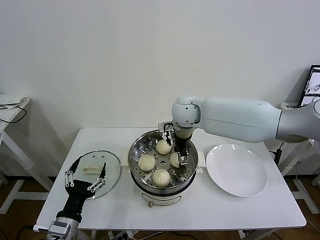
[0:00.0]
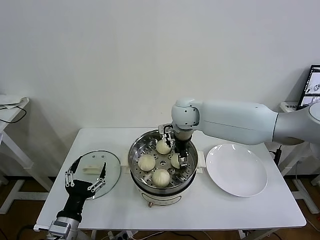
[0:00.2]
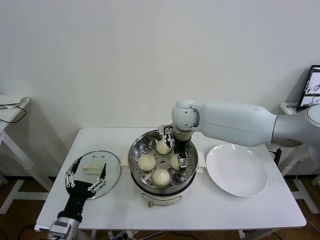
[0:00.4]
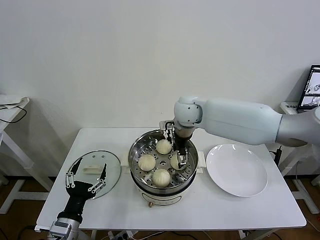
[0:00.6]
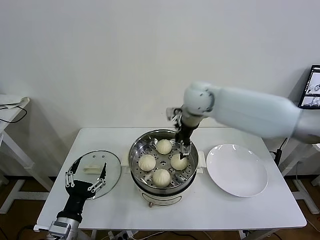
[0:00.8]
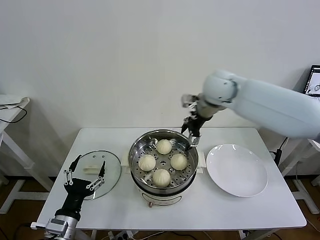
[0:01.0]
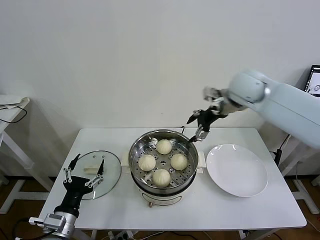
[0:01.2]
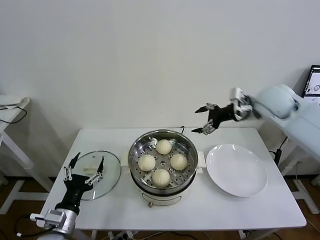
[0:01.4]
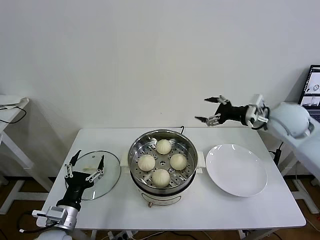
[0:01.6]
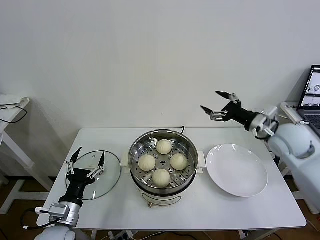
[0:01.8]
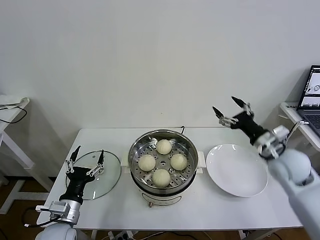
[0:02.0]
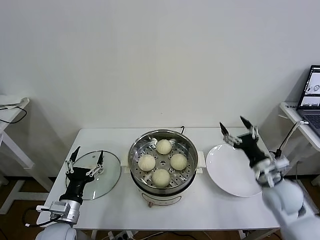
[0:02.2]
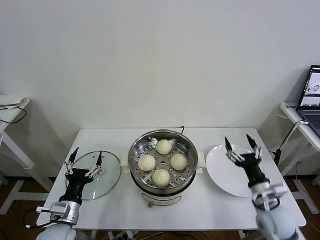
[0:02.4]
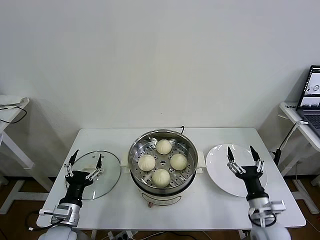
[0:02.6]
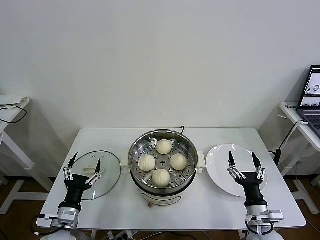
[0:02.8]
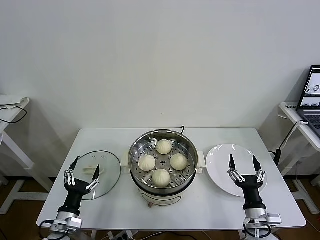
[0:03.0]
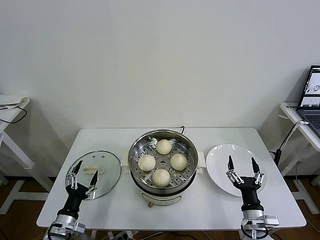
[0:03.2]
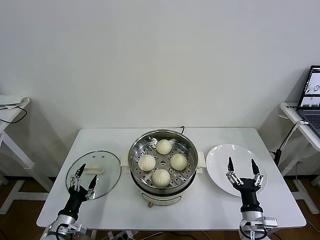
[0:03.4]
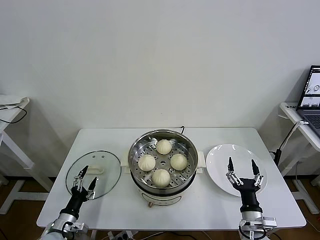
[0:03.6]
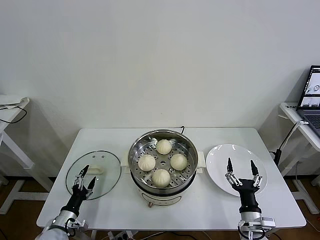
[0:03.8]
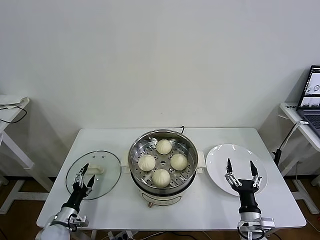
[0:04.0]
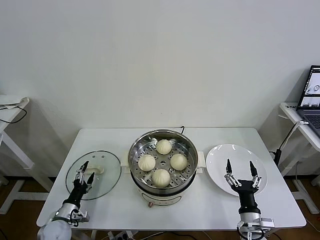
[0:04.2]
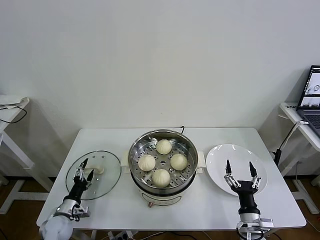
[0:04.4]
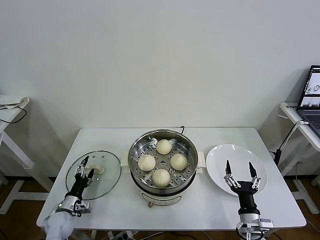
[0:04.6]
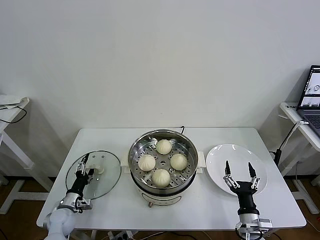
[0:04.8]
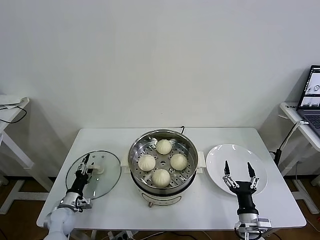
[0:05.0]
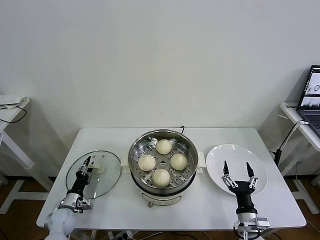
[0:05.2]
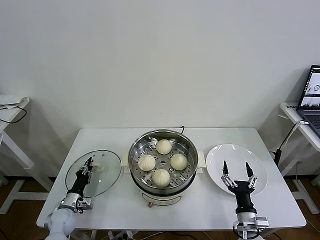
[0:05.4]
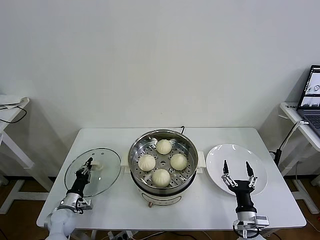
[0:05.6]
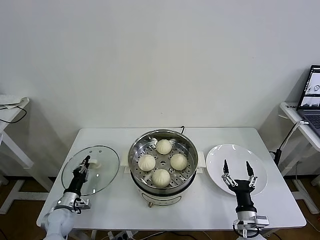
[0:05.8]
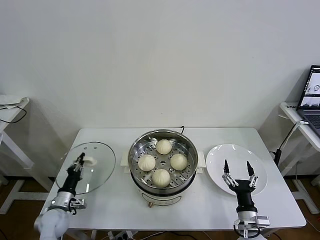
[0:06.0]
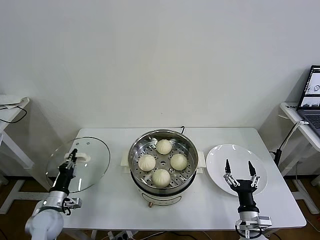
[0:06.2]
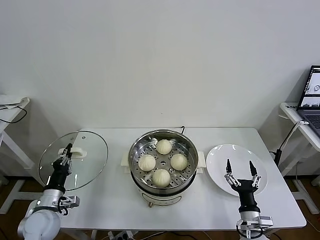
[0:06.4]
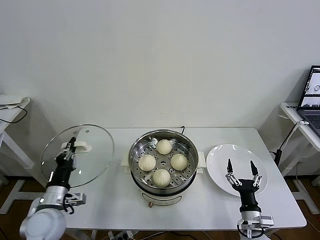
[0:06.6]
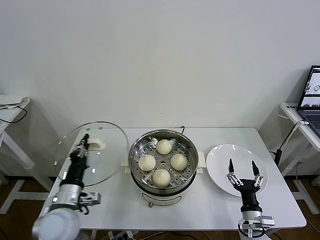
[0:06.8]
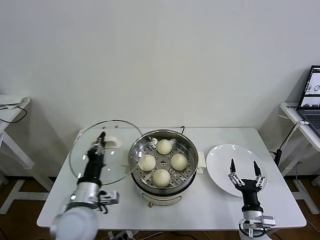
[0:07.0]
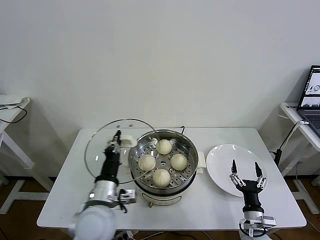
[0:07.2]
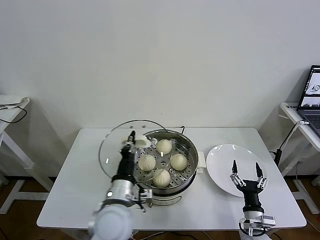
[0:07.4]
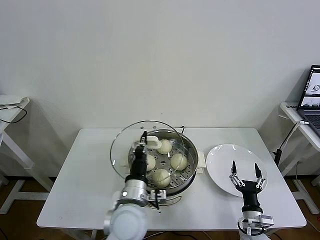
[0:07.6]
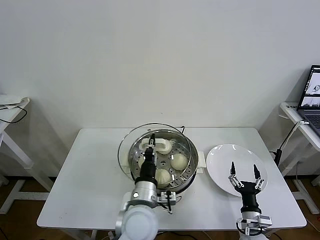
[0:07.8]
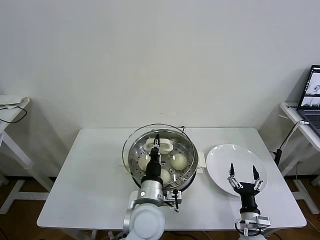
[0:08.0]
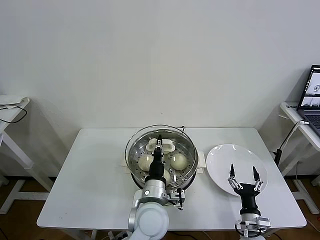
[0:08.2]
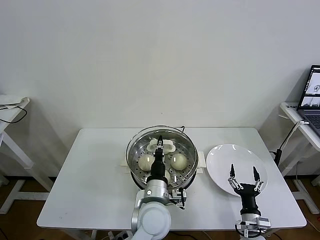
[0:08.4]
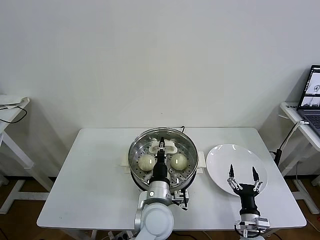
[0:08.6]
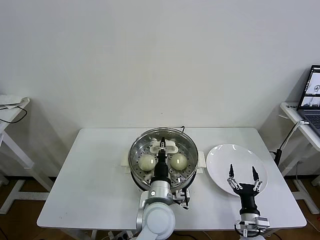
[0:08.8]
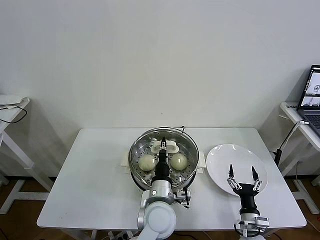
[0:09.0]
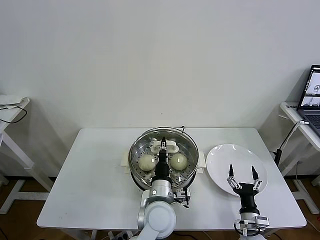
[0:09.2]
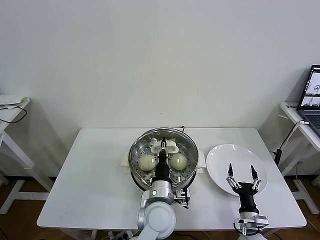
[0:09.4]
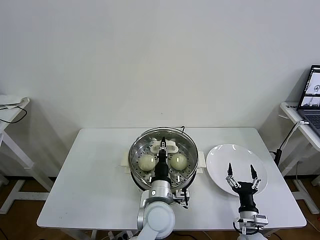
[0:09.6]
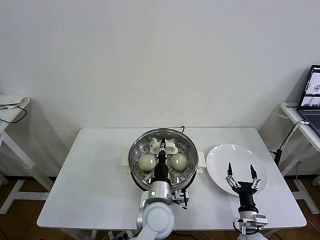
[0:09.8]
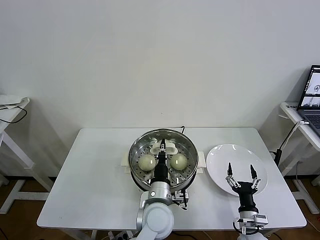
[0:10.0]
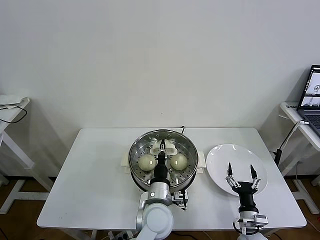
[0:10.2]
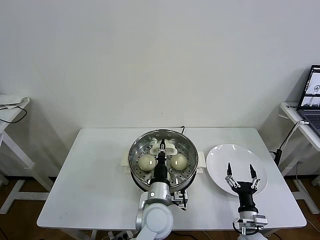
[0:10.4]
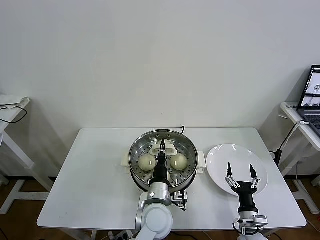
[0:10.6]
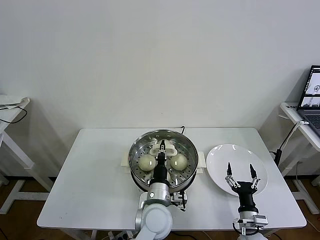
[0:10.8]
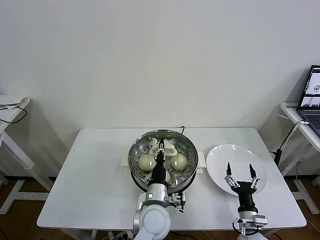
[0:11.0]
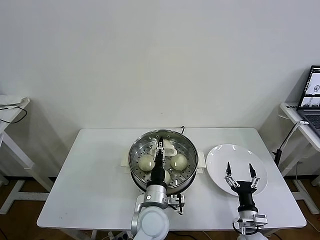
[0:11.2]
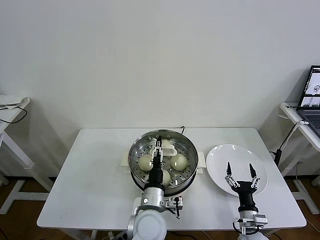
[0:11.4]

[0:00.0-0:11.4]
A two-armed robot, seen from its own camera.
Task of the whole recording: take steamed baozi put them in steamer then cover it.
Step, 0:00.8 to 0:05.6: Grasp the pot lid with left gripper.
0:00.0 to 0:01.4: The right gripper moves to the right, roughly 25 cm, and opens.
0:01.4 to 0:02.8: The right gripper goes about 40 cm downward and backward. Meanwhile the left gripper shifts approximately 5 cm downward.
0:02.8 to 0:04.2: The left gripper moves downward, to the left and forward, some 15 cm.
0:04.2 to 0:05.6: The left gripper moves some 5 cm, and closes up.
0:05.6 to 0:07.2: The left gripper goes some 30 cm upward and to the right.
0:07.2 to 0:08.6: The left gripper heads to the right, covering some 15 cm.
0:08.6 to 0:10.0: The grippers make only small movements.
0:10.0 to 0:11.4: The left gripper opens up.

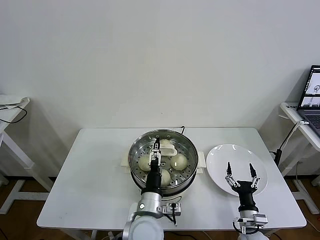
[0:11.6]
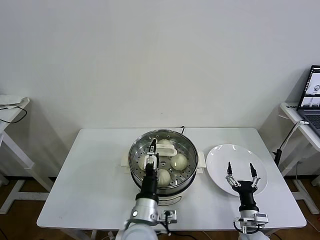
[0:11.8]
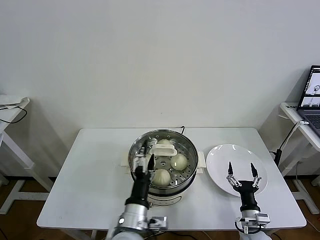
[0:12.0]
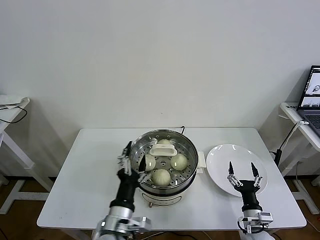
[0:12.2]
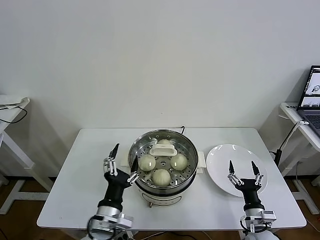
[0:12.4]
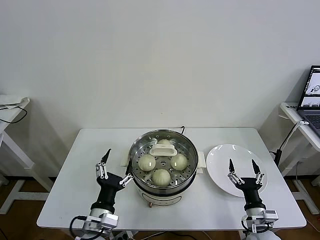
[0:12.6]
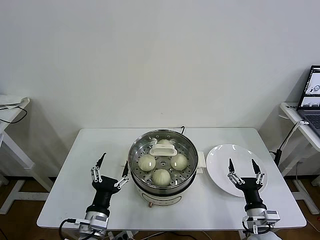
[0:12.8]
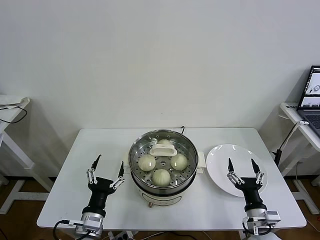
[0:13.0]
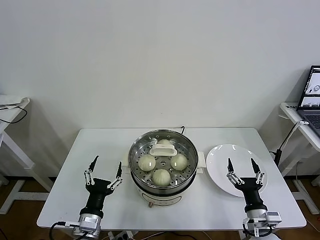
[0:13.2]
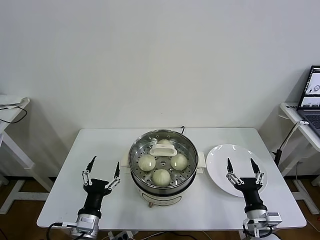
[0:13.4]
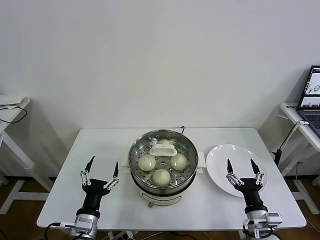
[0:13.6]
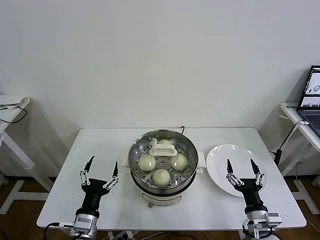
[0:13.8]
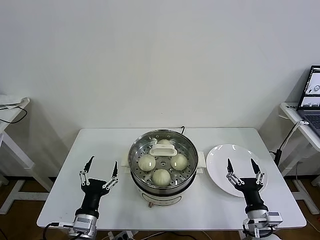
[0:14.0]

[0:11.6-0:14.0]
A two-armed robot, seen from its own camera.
Task of the whole recording: take steamed baozi put them in steamer then cover it.
0:11.6 to 0:12.8: The right gripper is displaced upward by roughly 5 cm; the left gripper goes roughly 15 cm to the left.
0:12.8 to 0:14.0: There are only small adjustments of the grippers.
